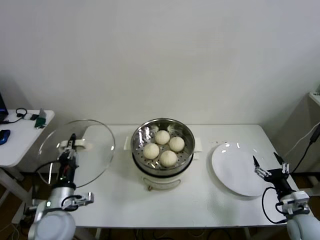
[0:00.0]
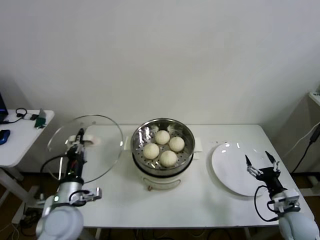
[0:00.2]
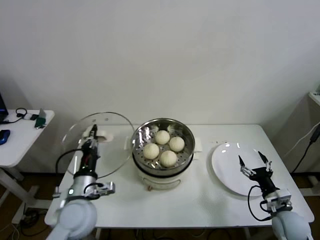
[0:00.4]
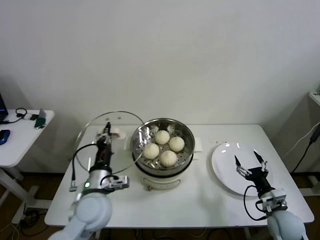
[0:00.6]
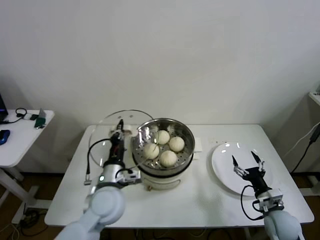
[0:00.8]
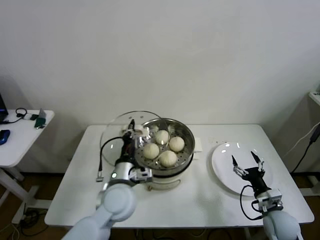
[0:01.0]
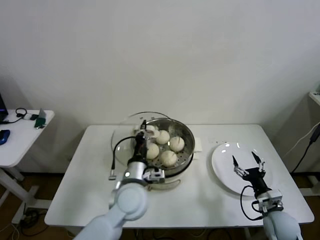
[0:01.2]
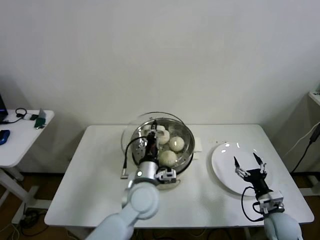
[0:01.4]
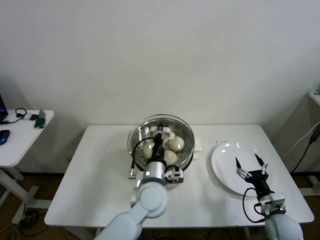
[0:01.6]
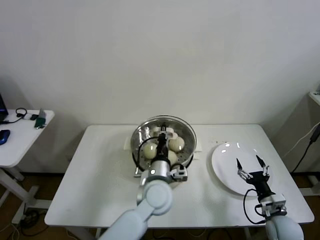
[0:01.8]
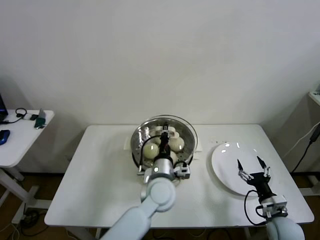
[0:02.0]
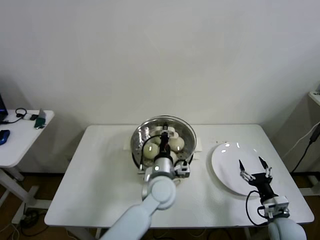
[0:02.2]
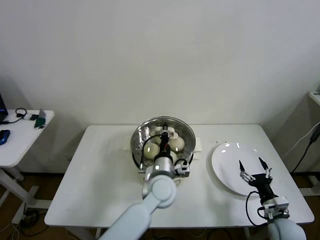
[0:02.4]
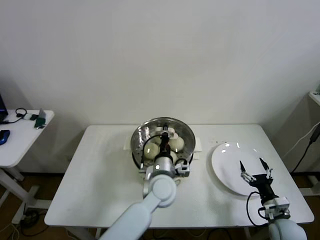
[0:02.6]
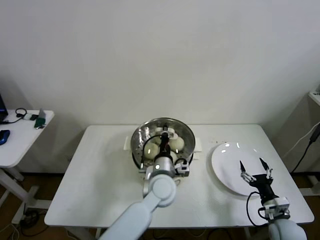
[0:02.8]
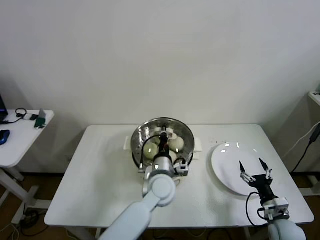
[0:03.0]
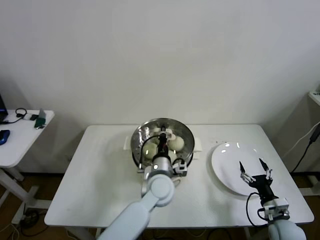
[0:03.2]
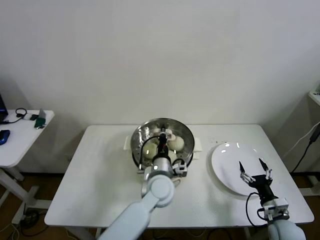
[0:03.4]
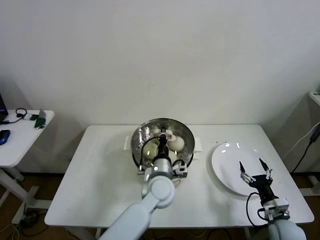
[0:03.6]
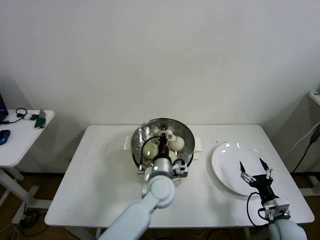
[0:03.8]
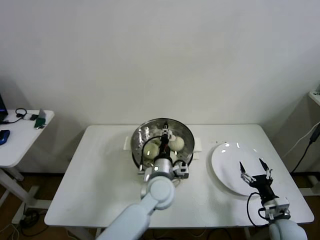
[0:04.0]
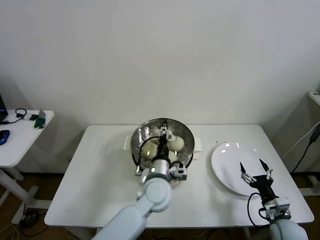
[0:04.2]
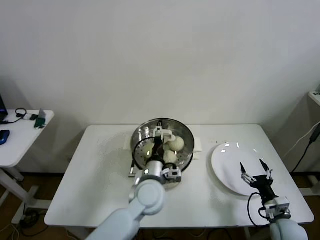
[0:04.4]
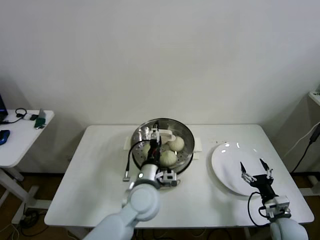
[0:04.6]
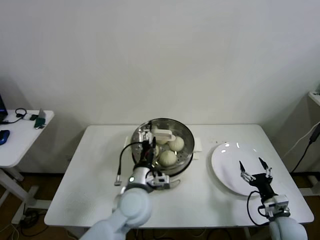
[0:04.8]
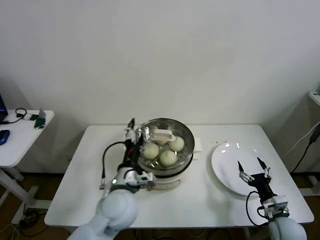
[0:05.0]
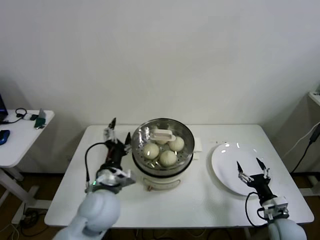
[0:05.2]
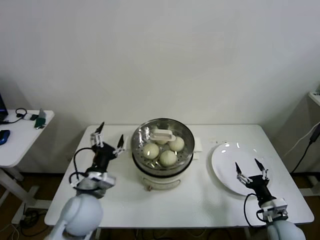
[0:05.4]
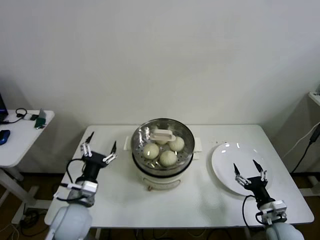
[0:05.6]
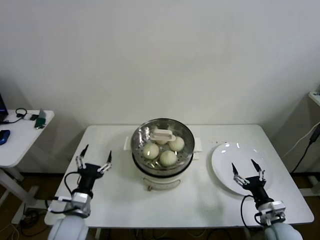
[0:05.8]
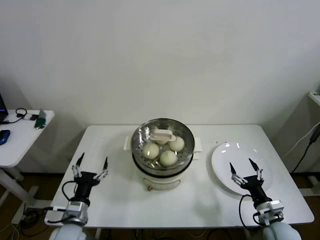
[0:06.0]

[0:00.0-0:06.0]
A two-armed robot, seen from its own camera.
Step, 0:00.0 to 0:04.0: Place the pot lid on the steamer with left gripper.
0:00.0 to 0:01.6: The right gripper goes roughly 5 cm to the left. Meanwhile the left gripper heads to the right, covering approximately 25 cm.
0:01.6 to 0:03.0: The left gripper ends up roughly 5 cm from where it was.
0:03.0 to 0:04.4: The left gripper opens.
0:04.4 to 0:06.0: The left gripper goes roughly 25 cm to the left and backward.

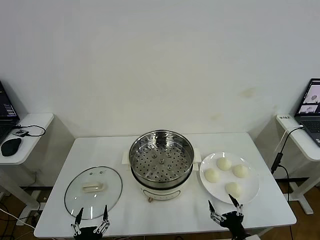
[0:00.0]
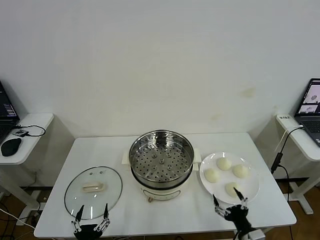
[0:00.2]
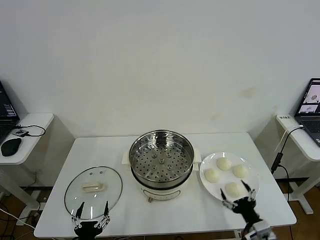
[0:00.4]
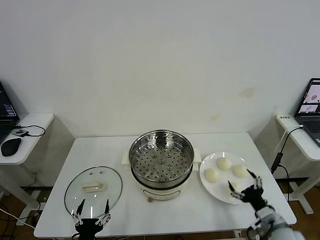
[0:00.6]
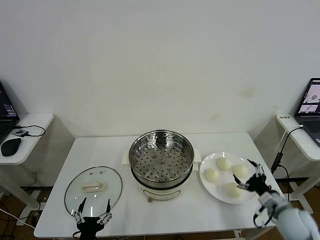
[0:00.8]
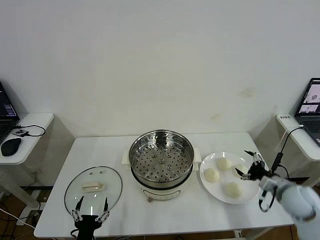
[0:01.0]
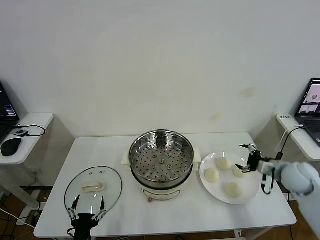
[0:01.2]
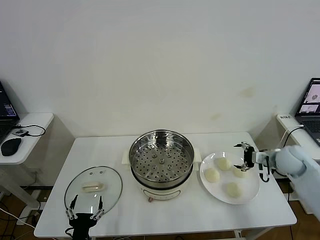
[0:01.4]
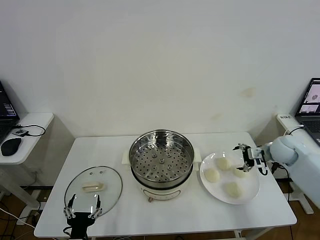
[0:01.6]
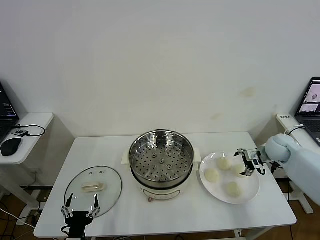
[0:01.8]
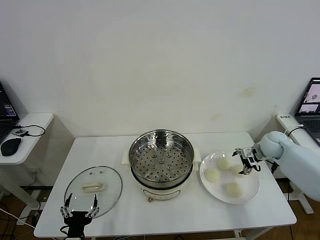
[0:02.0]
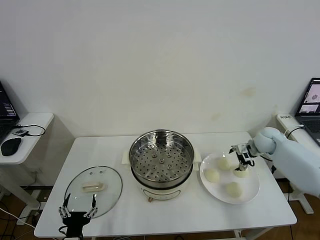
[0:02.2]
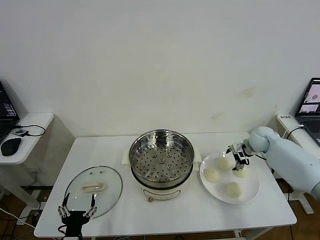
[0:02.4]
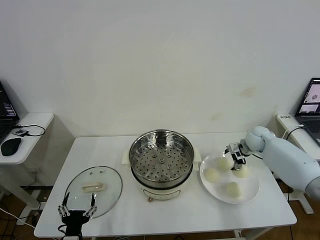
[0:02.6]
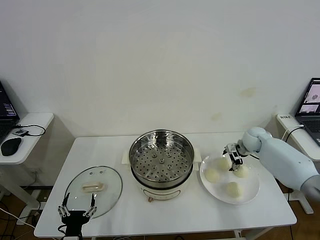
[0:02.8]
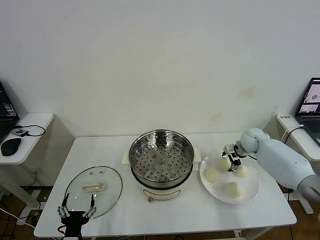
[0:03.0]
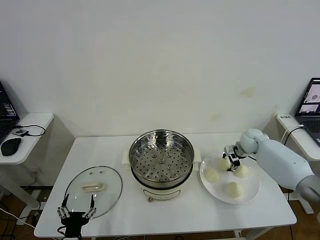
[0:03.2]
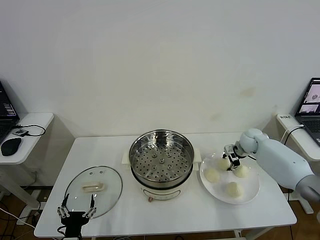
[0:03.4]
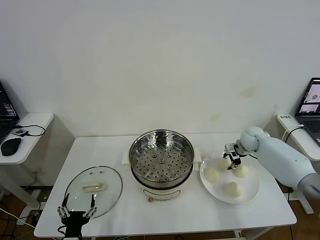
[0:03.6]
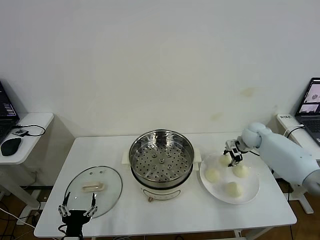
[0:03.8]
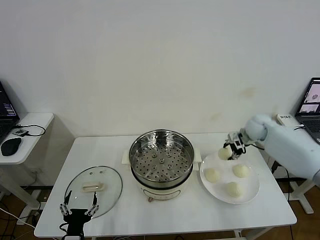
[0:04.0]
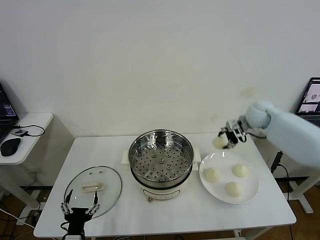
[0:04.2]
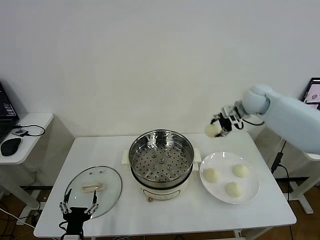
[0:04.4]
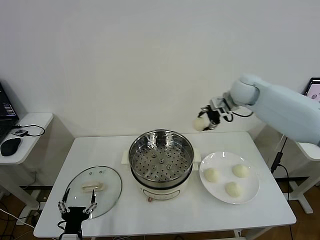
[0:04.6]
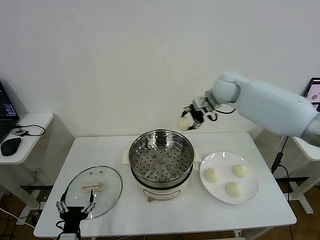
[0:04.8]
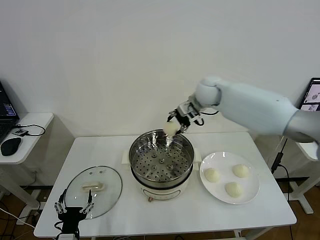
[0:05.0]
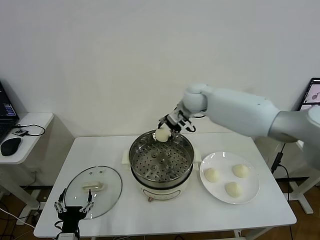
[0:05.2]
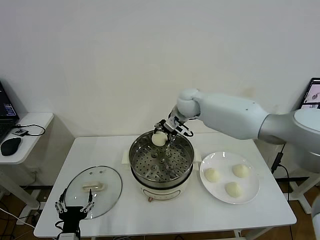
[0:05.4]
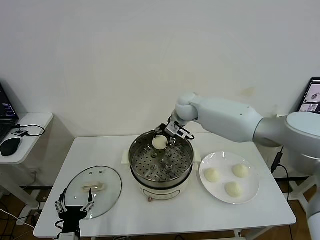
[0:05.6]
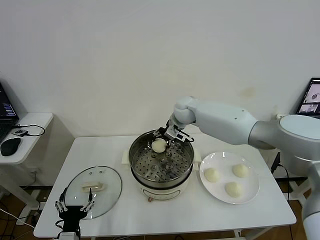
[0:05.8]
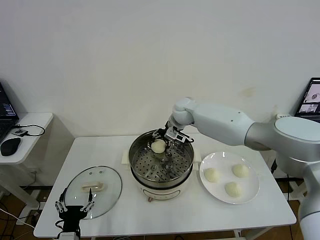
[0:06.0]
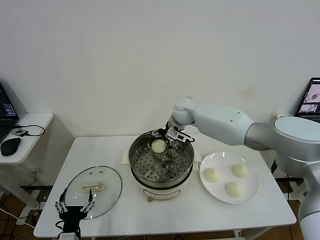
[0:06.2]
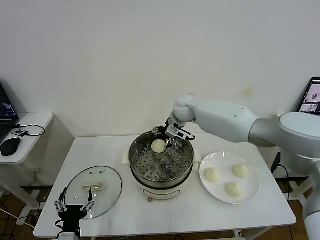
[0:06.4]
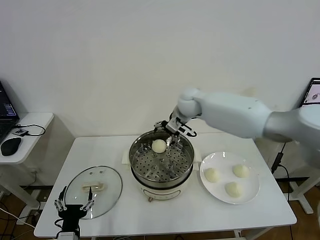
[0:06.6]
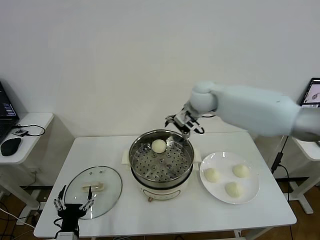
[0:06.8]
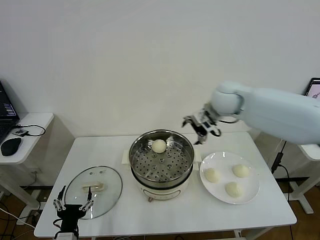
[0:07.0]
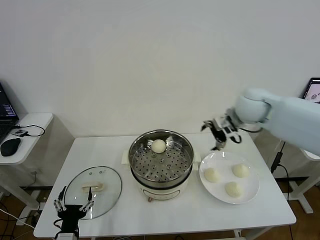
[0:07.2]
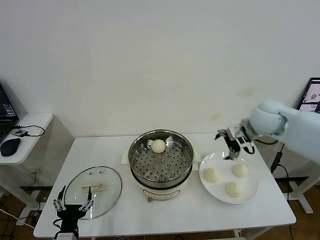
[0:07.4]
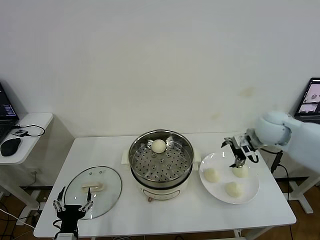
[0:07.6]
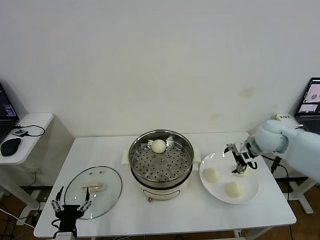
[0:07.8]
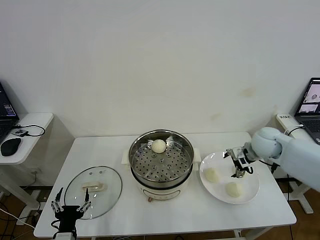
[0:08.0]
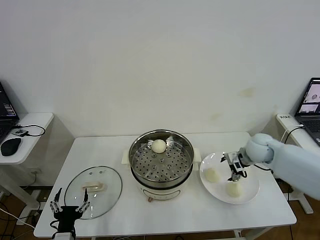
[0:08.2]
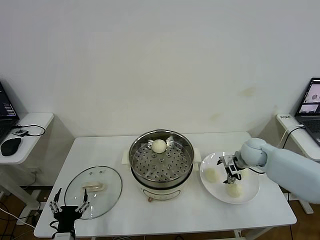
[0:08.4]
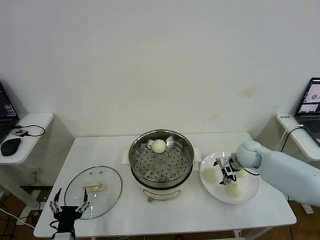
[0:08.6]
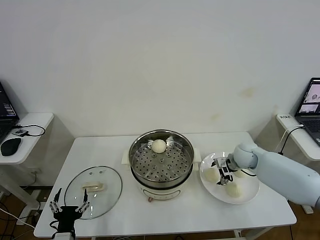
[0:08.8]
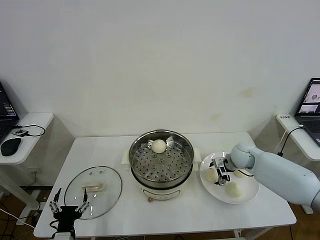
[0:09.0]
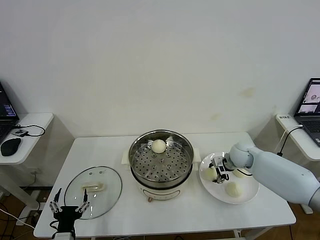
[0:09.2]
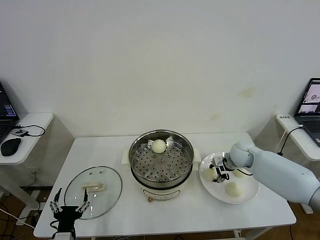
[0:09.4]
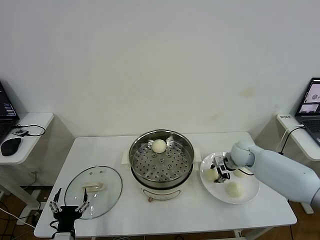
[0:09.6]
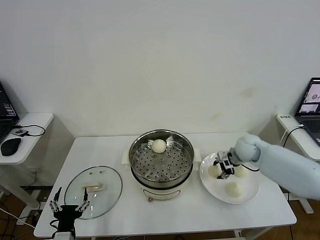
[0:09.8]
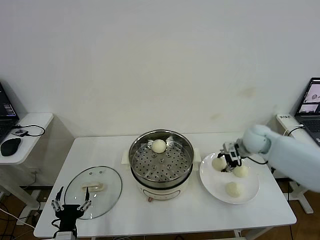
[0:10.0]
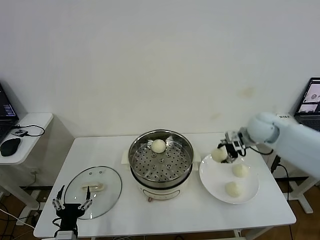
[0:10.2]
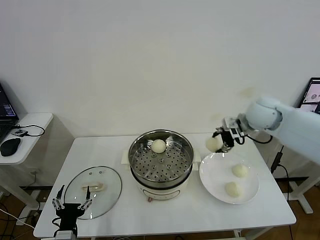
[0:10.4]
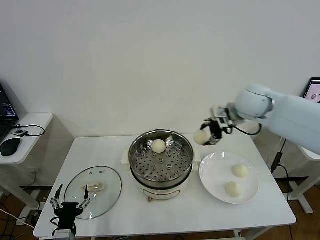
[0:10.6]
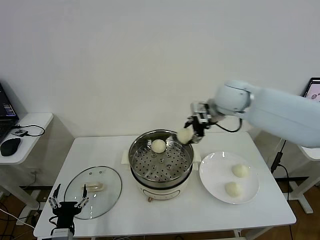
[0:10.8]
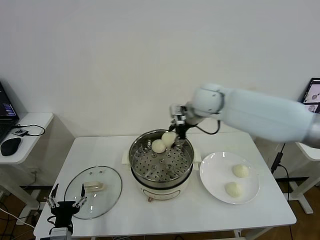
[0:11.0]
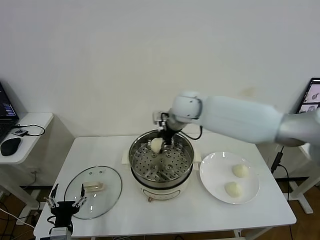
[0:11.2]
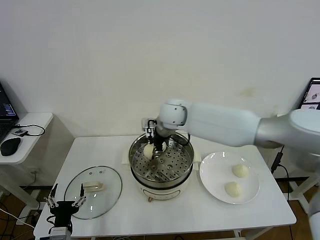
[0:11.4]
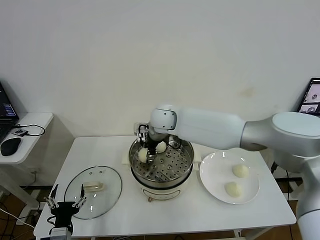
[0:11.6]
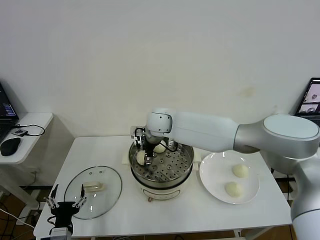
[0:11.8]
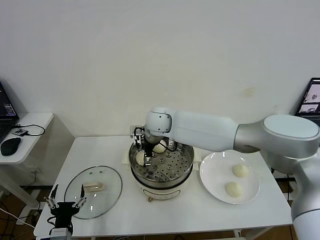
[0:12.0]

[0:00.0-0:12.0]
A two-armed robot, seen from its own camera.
Step, 0:00.0 to 0:03.4: Grasp the baozi in the plate with right gripper.
Step, 0:03.6 to 0:06.0: Place the baozi on the steamer with right gripper.
Step, 0:06.2 to 0:09.2: Grasp the baozi in the plate with right gripper.
Step, 0:09.4 to 0:11.8: Place the baozi on the steamer with right gripper.
0:01.6 to 0:03.0: The right gripper moves forward and to the left, roughly 10 cm, and closes up.
0:03.0 to 0:04.4: The right gripper is displaced upward by roughly 20 cm, and closes its fingers.
0:04.4 to 0:06.0: The right gripper goes about 20 cm to the left and downward, and opens its fingers.
0:06.0 to 0:07.6: The right gripper travels to the right and backward by some 30 cm, and opens its fingers.
0:07.6 to 0:09.0: The right gripper travels downward by roughly 15 cm, and closes up.
0:09.0 to 0:10.4: The right gripper is displaced upward by roughly 25 cm, and closes.
0:10.4 to 0:12.0: The right gripper heads to the left, covering some 30 cm, and opens.

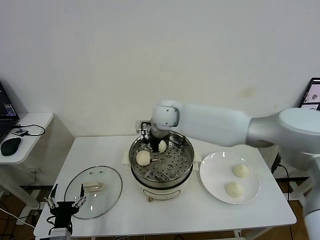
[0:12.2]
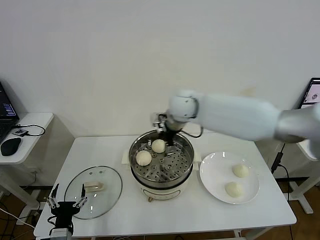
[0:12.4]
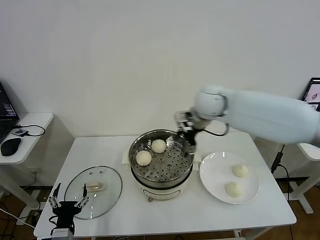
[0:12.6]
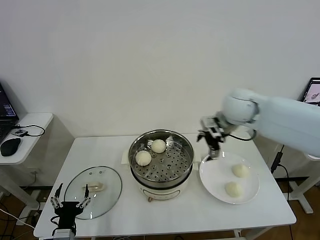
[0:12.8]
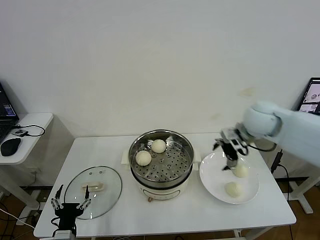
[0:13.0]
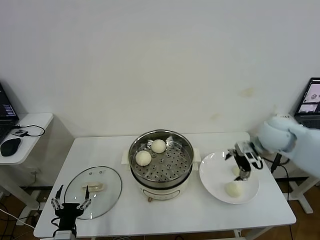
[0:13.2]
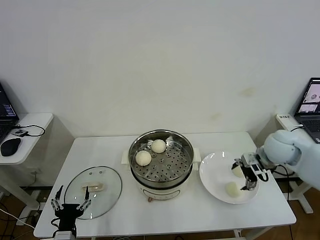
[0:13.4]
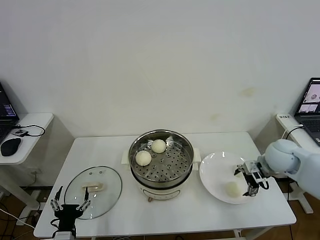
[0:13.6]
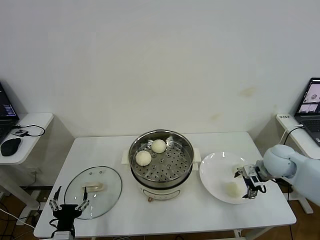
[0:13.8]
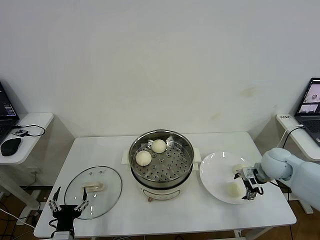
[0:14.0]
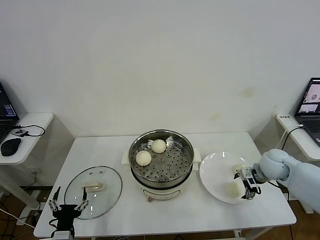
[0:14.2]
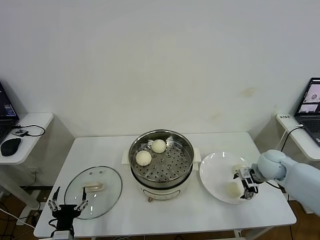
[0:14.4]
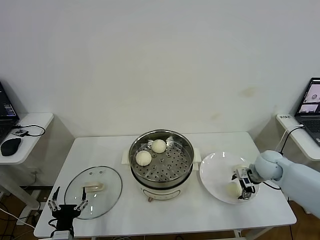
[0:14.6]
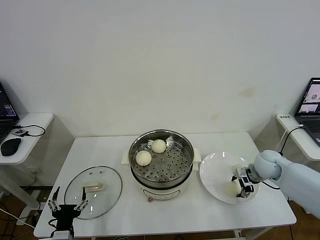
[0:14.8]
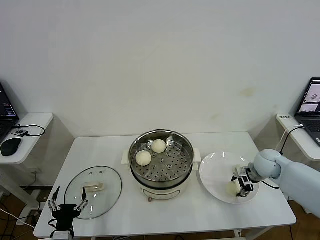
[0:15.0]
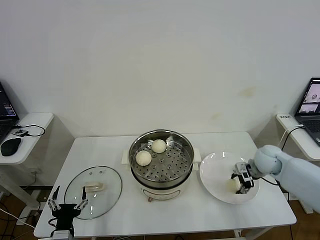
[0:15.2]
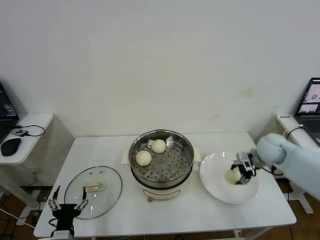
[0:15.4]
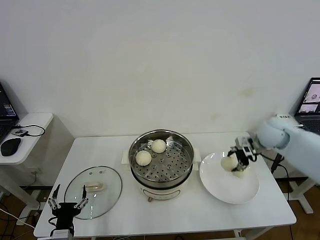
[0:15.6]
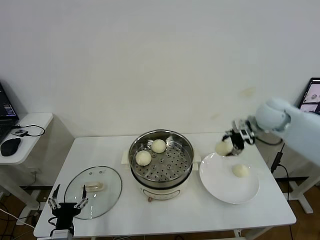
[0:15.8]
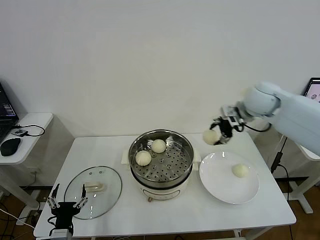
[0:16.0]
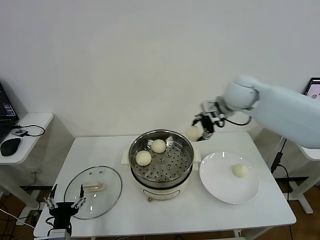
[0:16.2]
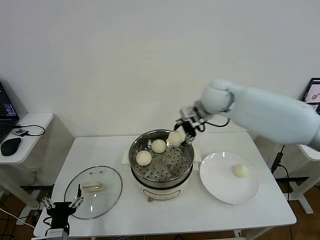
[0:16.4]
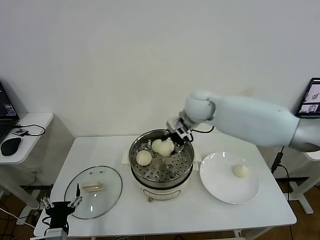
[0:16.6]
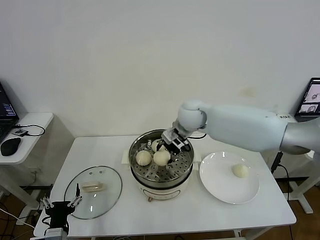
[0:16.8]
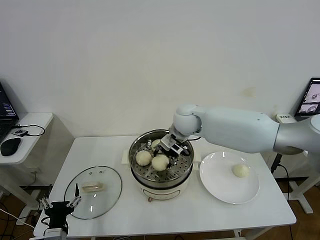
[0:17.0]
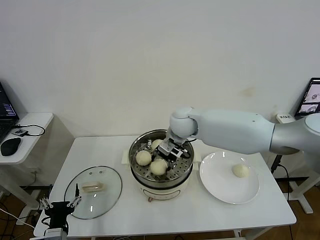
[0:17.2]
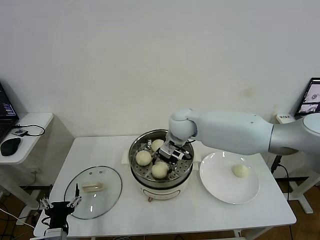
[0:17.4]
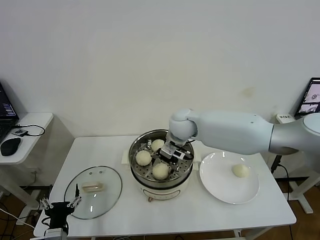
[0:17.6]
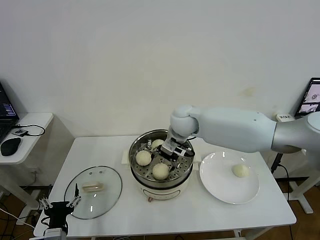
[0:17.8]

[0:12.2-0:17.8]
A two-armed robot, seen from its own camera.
Step, 0:12.2 to 0:15.0: Grasp the baozi in the plate with right gripper.
Step, 0:15.2 to 0:17.6: Place the baozi on the steamer with right gripper.
0:12.2 to 0:13.6: The right gripper goes about 35 cm to the right.
0:13.6 to 0:15.0: The right gripper shifts some 5 cm downward, and closes.
0:15.0 to 0:16.4: The right gripper heads to the left and upward, covering approximately 30 cm.
0:16.4 to 0:17.8: The right gripper travels to the left and downward by roughly 10 cm, and opens its fingers.
